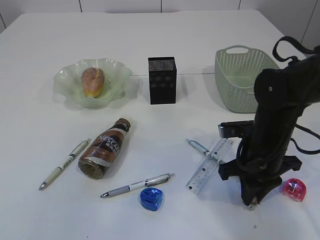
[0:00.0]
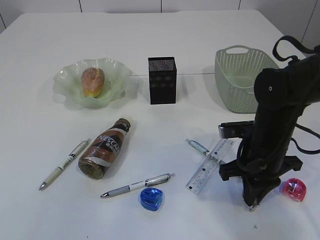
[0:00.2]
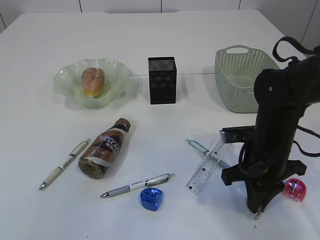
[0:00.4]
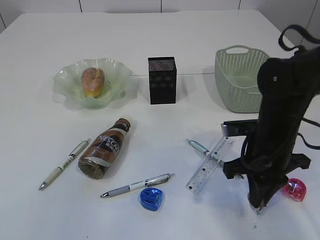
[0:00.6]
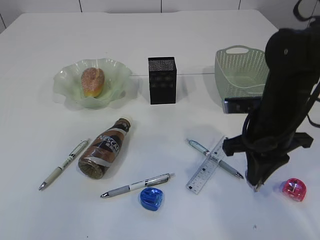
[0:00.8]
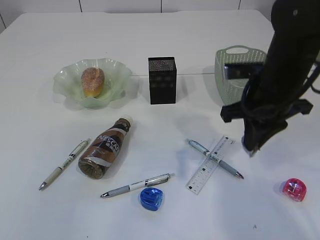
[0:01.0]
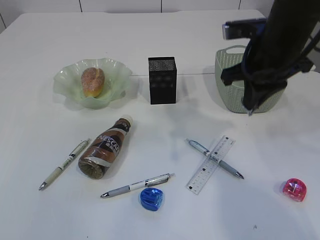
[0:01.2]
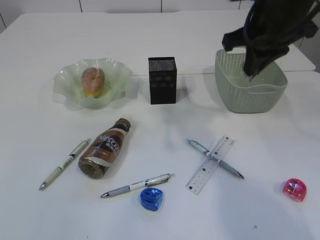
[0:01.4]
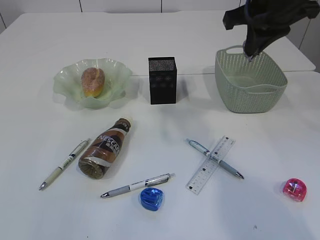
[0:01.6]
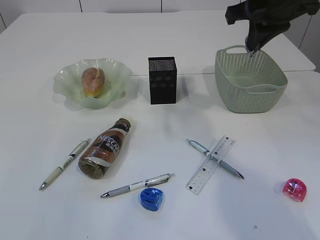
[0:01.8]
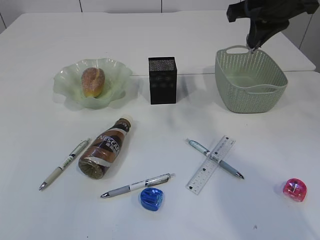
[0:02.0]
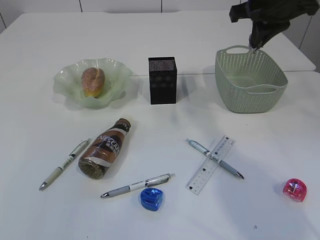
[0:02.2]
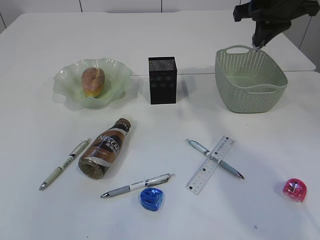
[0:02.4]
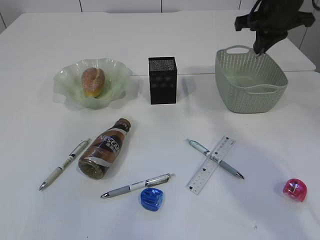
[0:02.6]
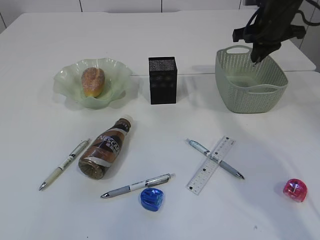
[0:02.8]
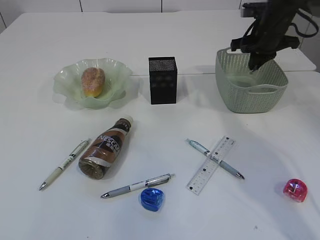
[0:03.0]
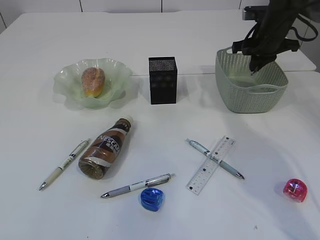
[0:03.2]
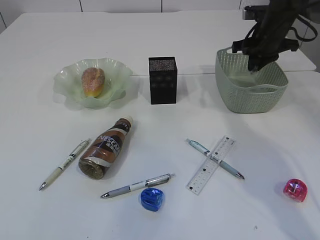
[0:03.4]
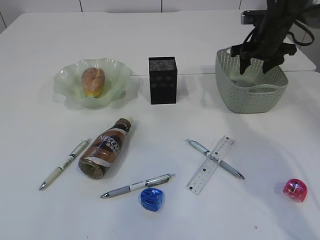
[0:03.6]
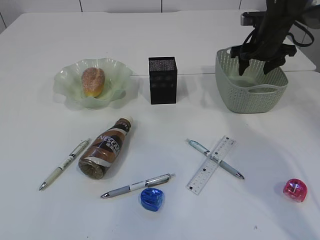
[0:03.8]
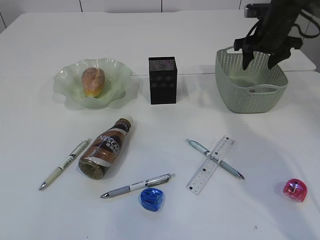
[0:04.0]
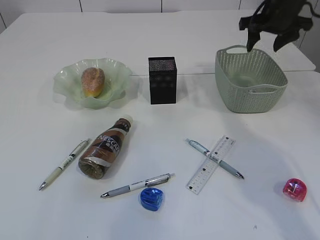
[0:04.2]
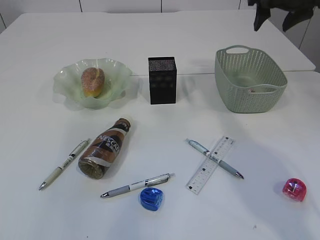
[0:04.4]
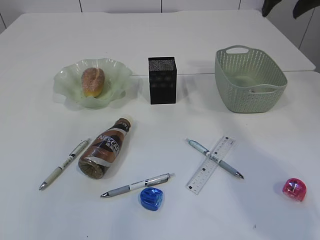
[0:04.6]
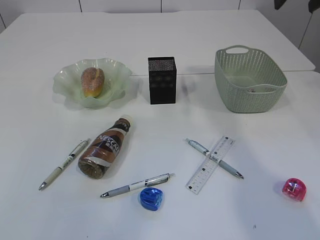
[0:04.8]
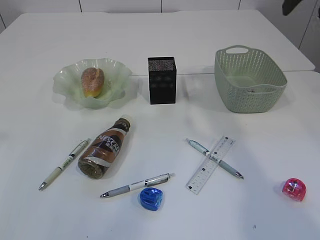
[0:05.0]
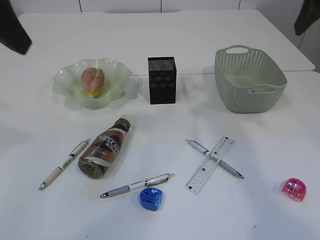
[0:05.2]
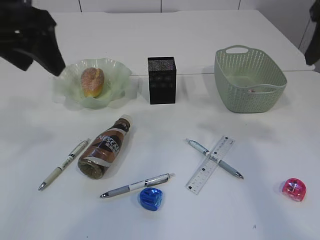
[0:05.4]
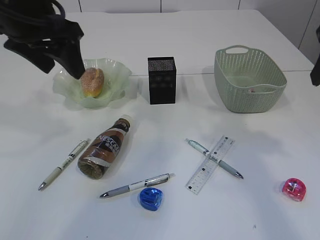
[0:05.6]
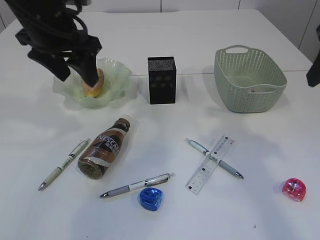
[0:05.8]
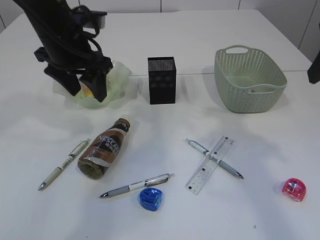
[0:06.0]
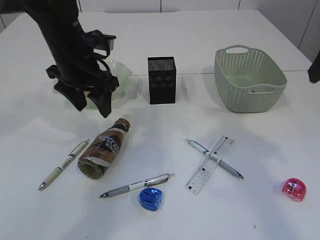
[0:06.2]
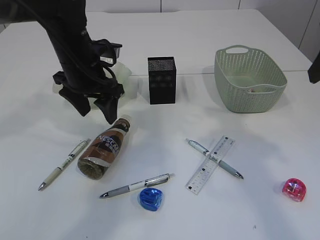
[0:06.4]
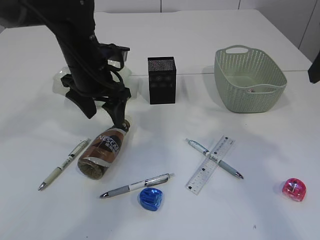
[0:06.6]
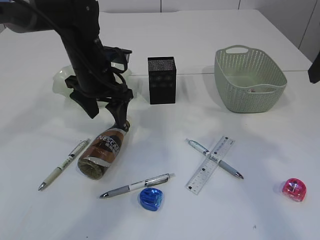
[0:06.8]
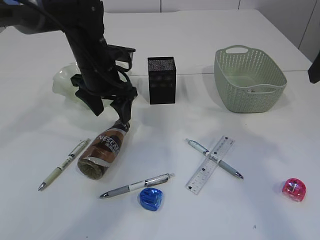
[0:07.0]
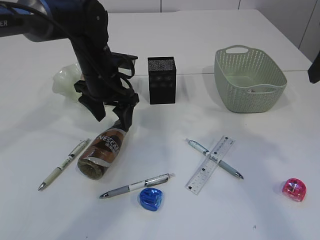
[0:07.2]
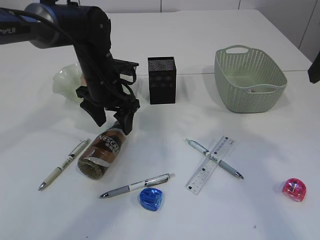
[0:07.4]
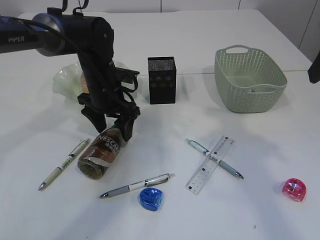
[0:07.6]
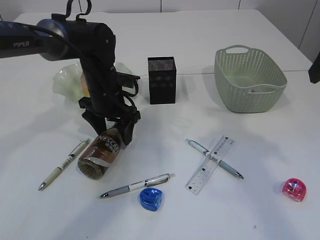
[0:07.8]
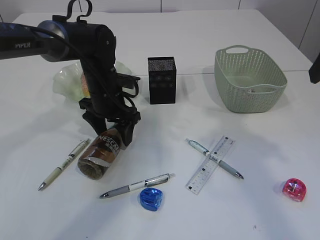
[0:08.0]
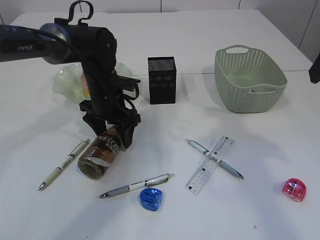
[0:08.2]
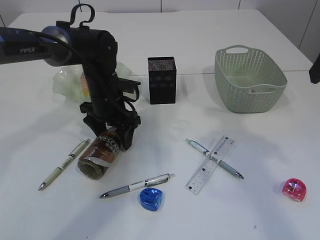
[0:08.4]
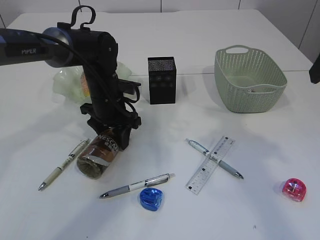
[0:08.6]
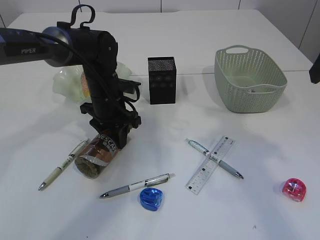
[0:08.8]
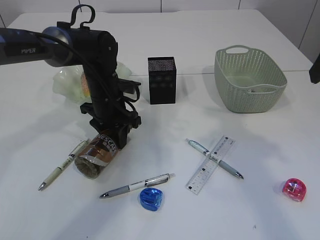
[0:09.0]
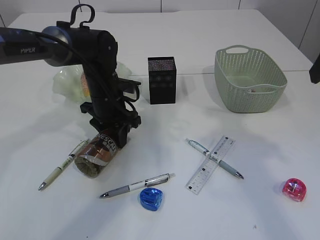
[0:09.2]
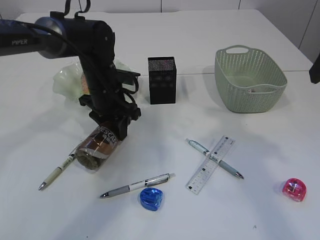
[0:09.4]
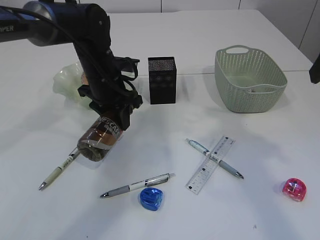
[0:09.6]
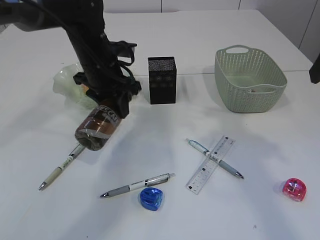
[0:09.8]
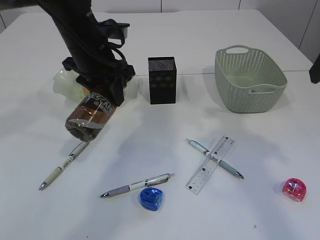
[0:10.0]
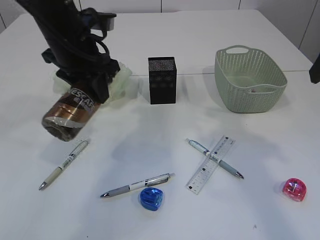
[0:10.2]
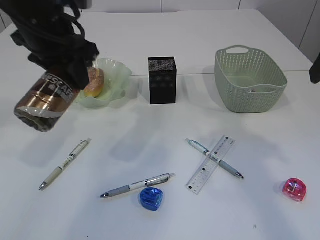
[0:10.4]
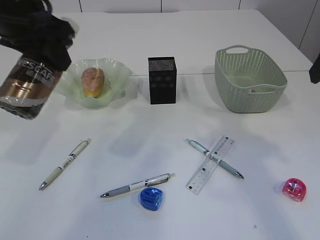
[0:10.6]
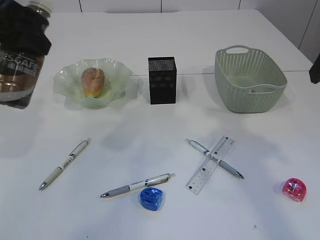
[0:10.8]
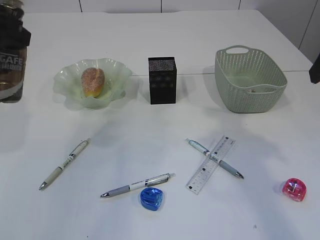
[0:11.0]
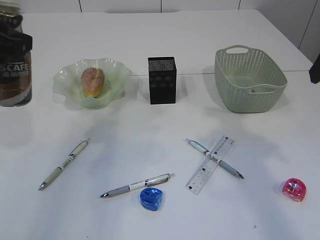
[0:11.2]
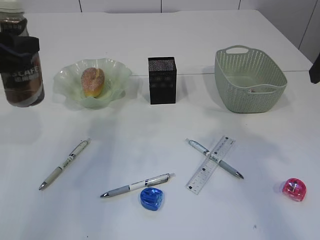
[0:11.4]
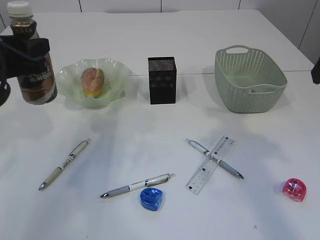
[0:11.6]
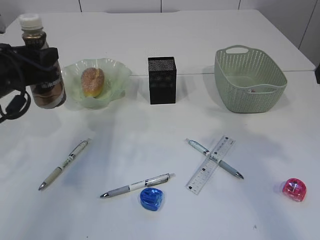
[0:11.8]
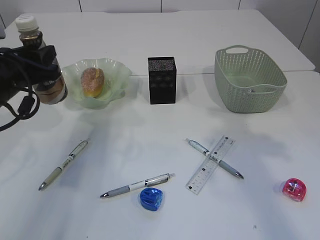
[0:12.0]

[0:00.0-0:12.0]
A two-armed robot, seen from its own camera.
Step, 0:01.0 to 0:03.8: Place the waste paper in the basket.
Step, 0:04.0 to 0:10.2: Pick up the bottle with the left arm.
0:00.0 to 0:01.6: The right gripper shifts some 20 cm upward.
0:01.6 to 0:03.0: The right gripper travels forward, downward and to the right by about 20 cm.
0:03.0 to 0:04.4: The right gripper shifts roughly 10 cm upward, and opens.
0:04.4 to 0:06.0: The left gripper travels forward, downward and to the right by roughly 35 cm. The right gripper travels backward by about 20 cm.
0:06.0 to 0:07.6: The left gripper travels downward by approximately 10 cm.
0:07.6 to 0:09.0: The left gripper closes its fingers.
0:09.0 to 0:10.4: The left gripper travels upward and backward by about 20 cm.
0:10.4 to 0:12.0: The left gripper is displaced downward and to the left by about 15 cm.

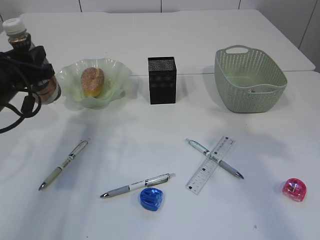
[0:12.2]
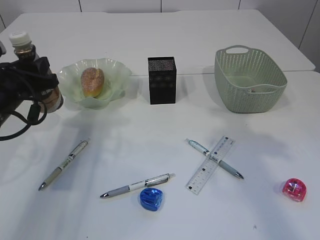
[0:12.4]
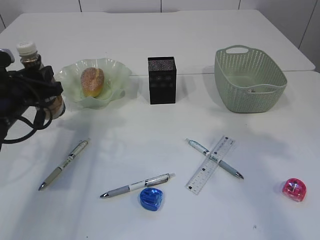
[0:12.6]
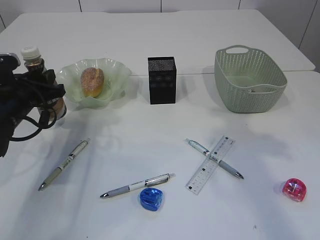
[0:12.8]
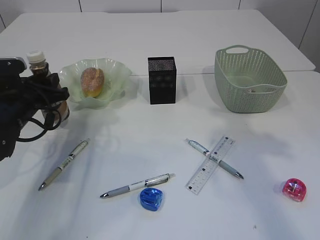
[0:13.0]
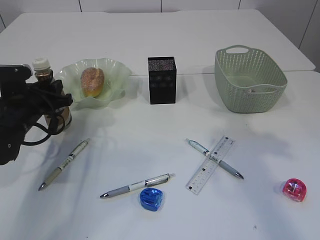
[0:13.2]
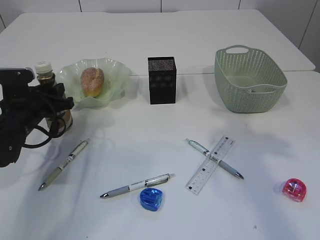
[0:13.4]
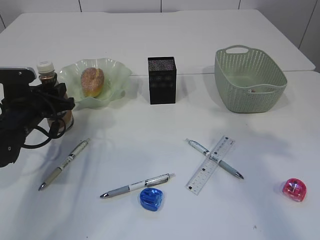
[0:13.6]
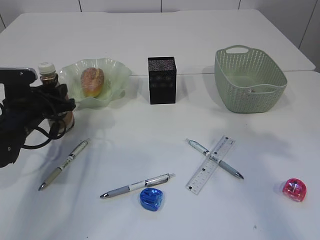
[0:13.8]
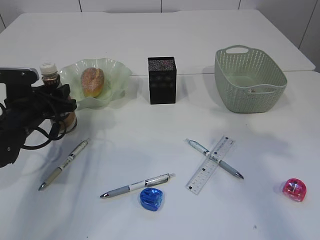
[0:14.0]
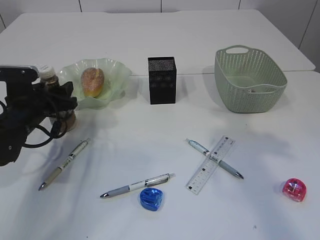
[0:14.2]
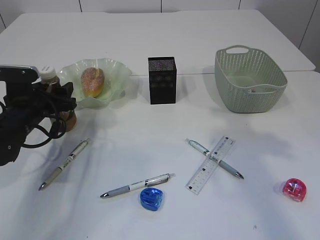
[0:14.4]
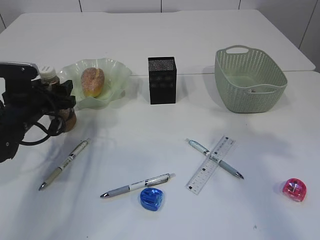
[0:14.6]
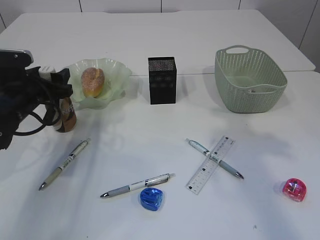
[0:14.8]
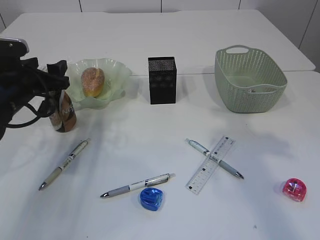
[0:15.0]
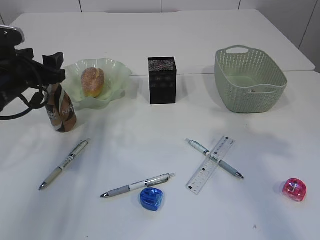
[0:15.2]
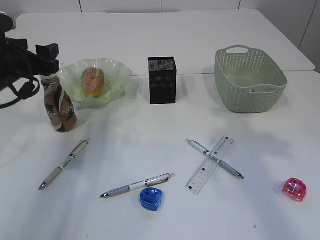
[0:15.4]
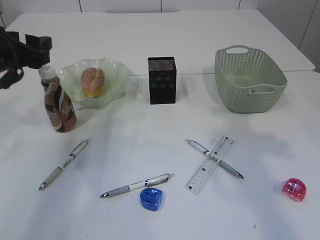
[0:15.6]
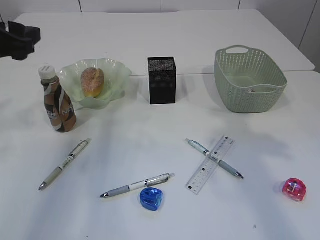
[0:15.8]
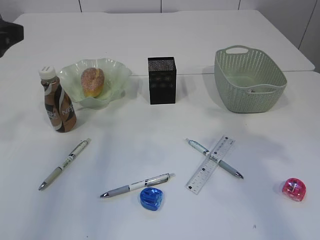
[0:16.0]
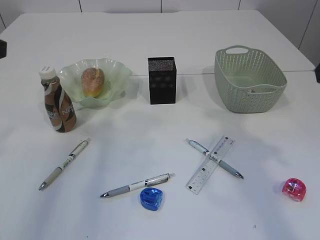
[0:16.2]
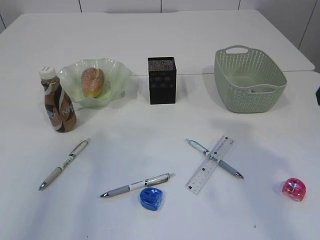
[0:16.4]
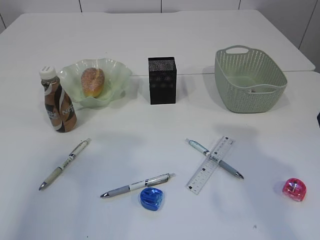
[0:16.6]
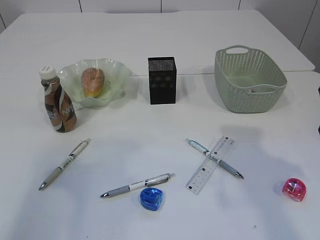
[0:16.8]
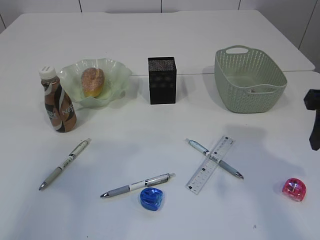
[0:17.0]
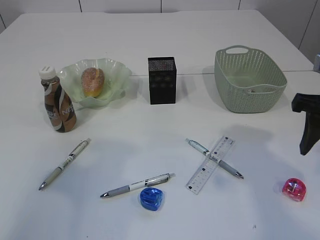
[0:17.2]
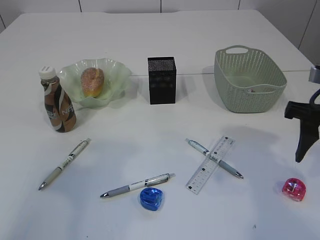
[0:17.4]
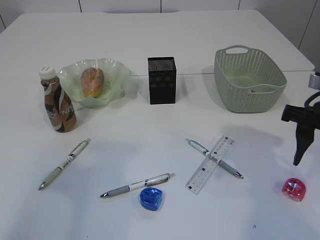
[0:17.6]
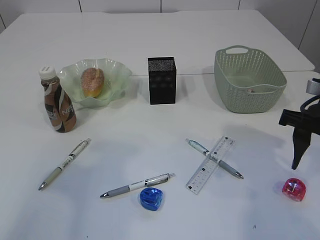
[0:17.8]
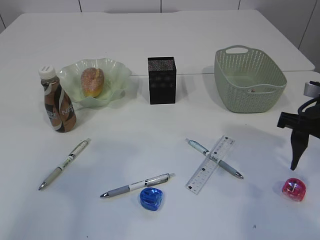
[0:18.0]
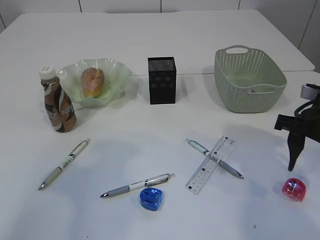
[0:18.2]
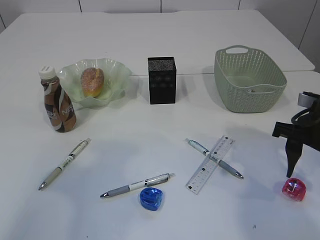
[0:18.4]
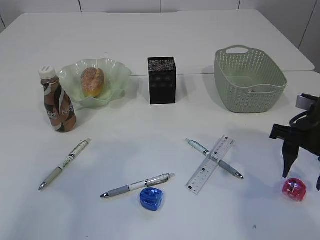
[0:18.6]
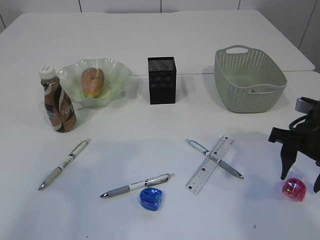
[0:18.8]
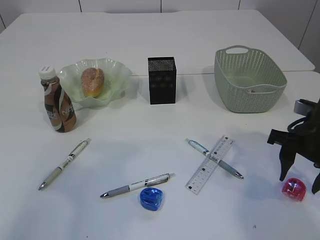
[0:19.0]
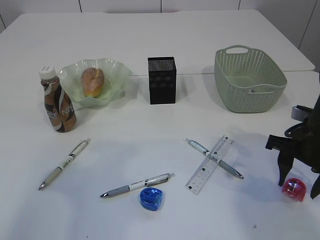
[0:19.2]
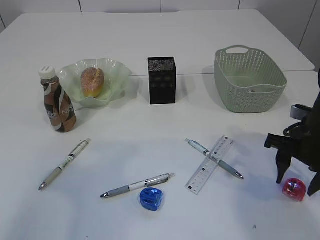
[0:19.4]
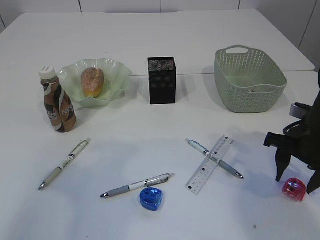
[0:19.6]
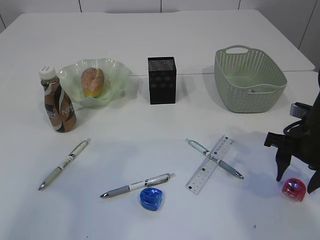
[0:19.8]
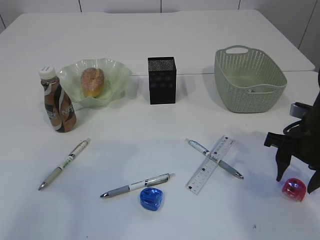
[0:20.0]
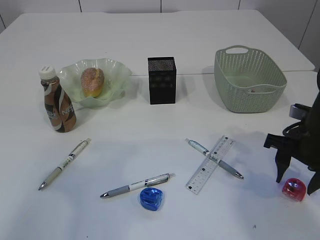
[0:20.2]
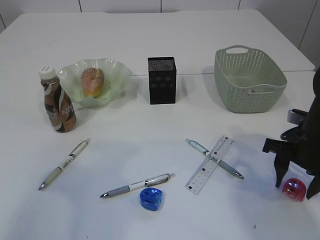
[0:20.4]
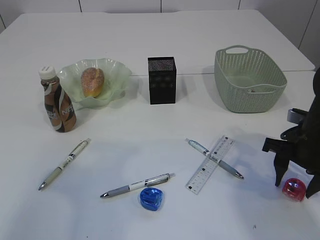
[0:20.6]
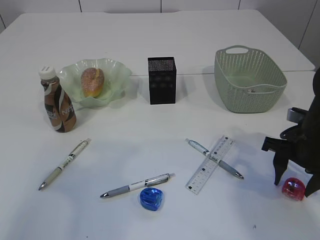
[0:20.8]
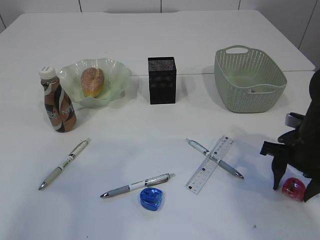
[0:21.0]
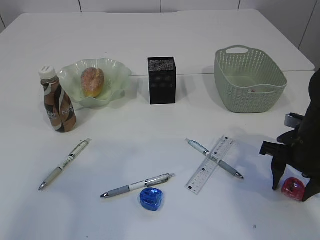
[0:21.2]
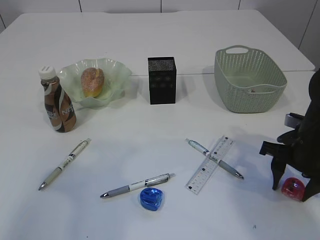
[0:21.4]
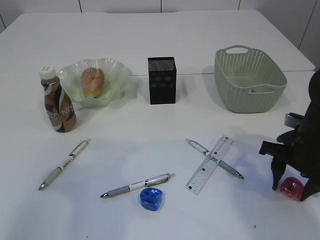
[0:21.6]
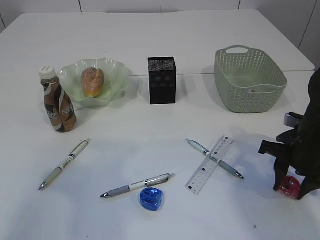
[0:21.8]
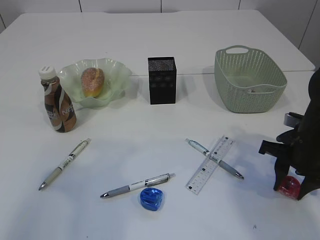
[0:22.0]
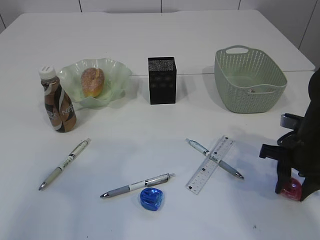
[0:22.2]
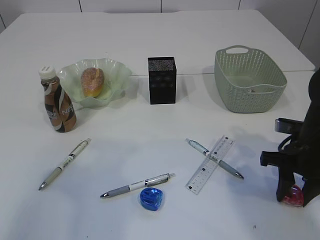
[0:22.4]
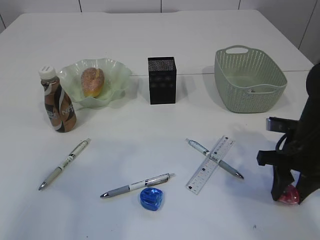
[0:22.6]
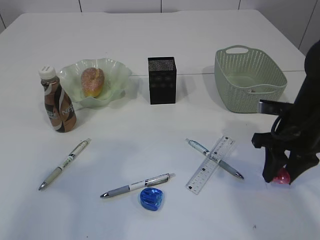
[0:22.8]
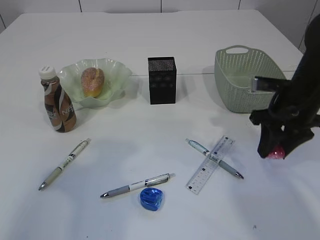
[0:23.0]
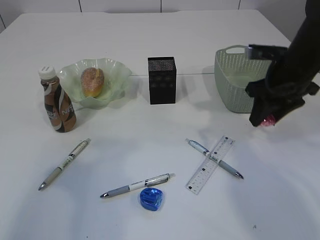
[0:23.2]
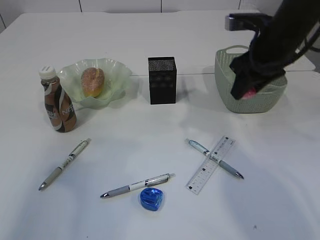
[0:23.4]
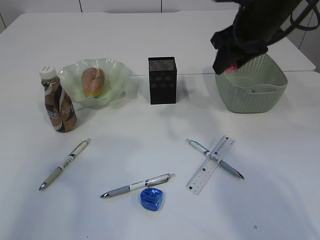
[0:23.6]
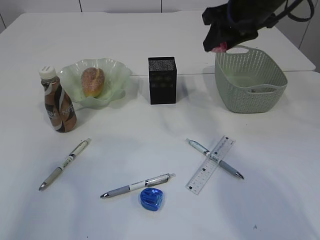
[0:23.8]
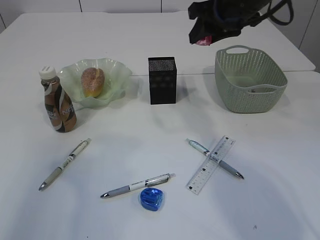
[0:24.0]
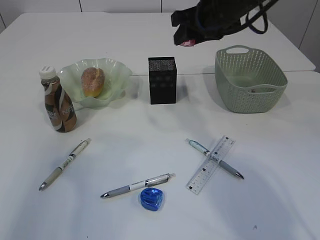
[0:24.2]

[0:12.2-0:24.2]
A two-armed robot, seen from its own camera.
Step, 0:12.2 to 0:15.8: Place the bottle.
Step, 0:16.0 to 0:23.0: Pick up the red pencil sharpener.
0:12.2 to 0:13.8: The left gripper moves downward, about 10 cm.
0:13.8 to 0:15.2: The left gripper heads upward, covering roughly 10 cm, and opens its fingers.
0:15.2 to 0:16.6: The left gripper heads backward and upward, covering about 25 cm.
0:16.6 to 0:18.2: The right gripper goes about 15 cm downward and forward.
0:18.2 to 0:19.8: The right gripper is displaced downward by approximately 5 cm.
0:19.8 to 0:21.2: There are only small adjustments of the grippers.
0:22.6 to 0:24.2: The right gripper shifts about 25 cm upward, forward and to the left.
